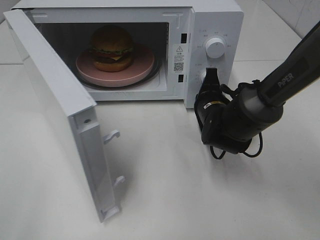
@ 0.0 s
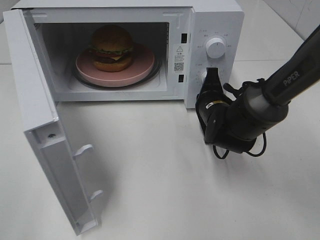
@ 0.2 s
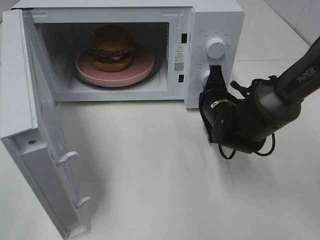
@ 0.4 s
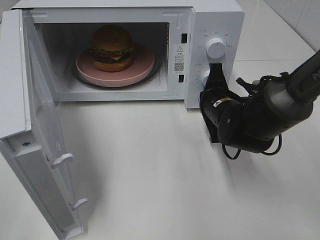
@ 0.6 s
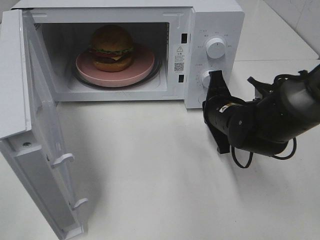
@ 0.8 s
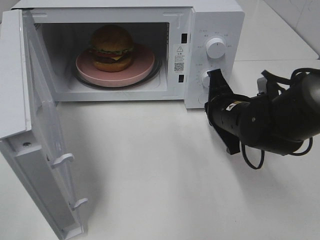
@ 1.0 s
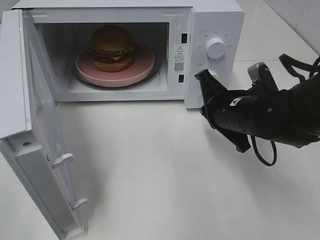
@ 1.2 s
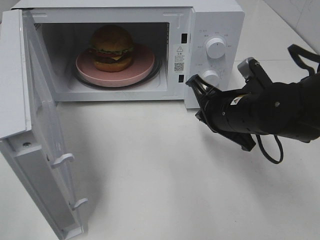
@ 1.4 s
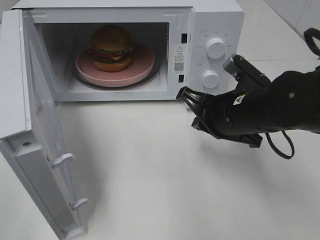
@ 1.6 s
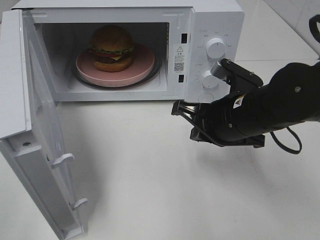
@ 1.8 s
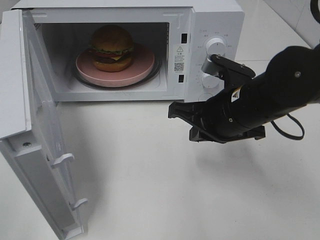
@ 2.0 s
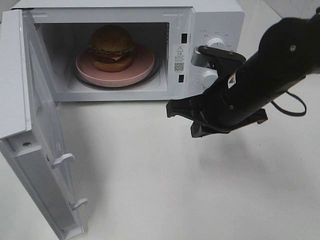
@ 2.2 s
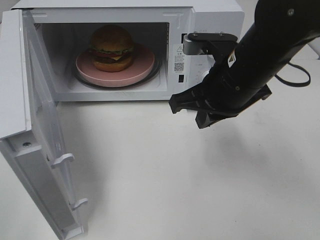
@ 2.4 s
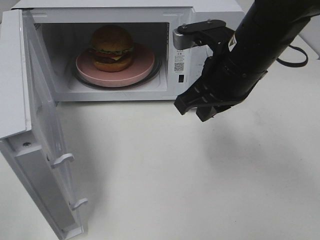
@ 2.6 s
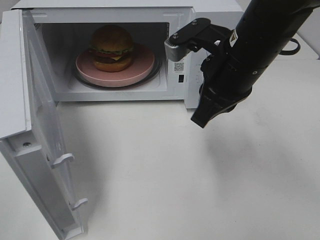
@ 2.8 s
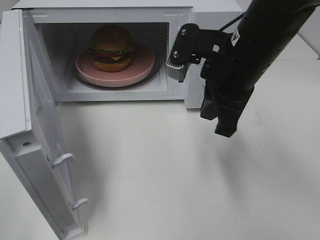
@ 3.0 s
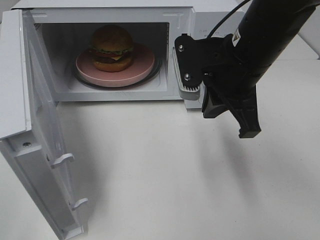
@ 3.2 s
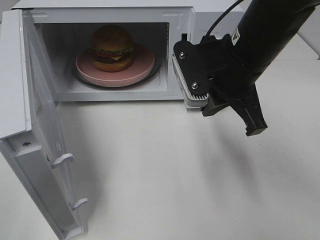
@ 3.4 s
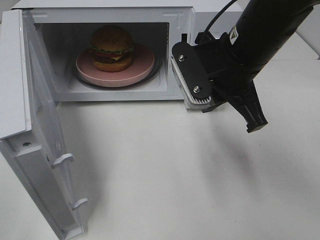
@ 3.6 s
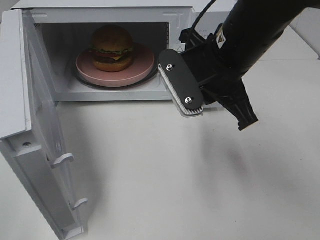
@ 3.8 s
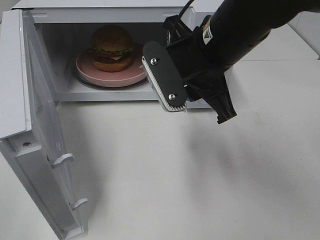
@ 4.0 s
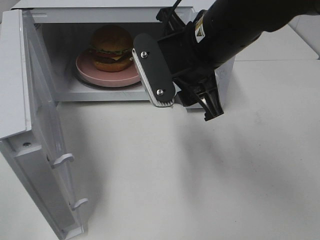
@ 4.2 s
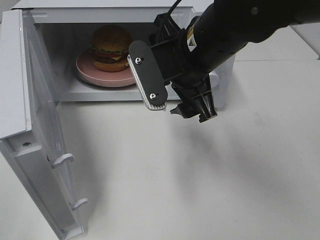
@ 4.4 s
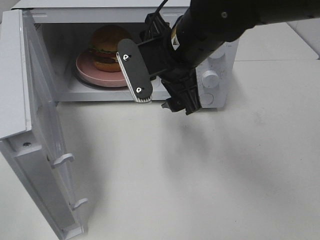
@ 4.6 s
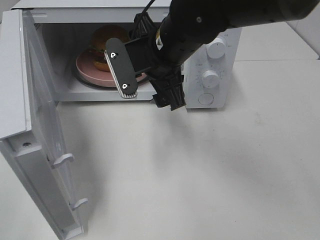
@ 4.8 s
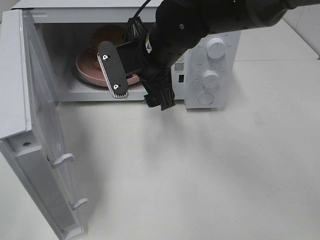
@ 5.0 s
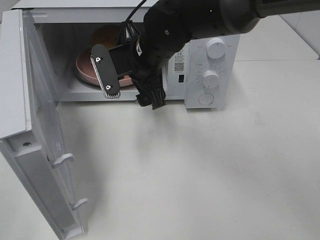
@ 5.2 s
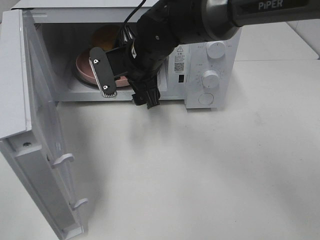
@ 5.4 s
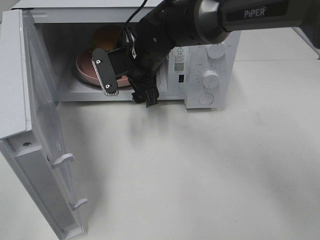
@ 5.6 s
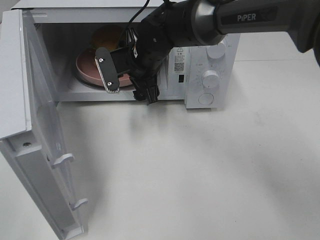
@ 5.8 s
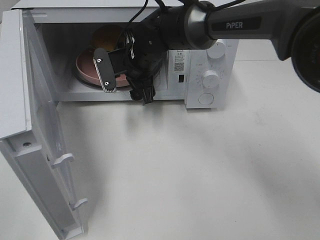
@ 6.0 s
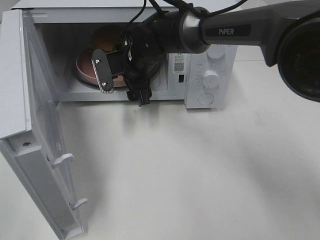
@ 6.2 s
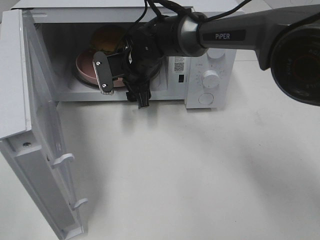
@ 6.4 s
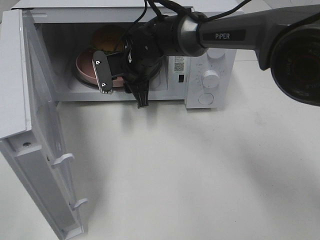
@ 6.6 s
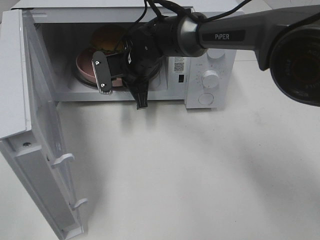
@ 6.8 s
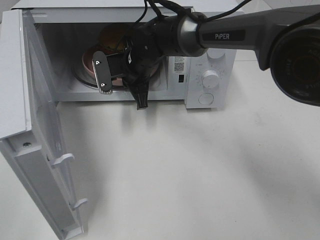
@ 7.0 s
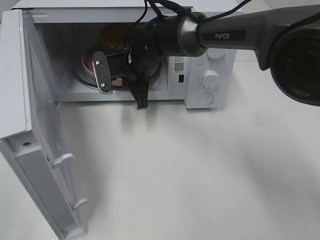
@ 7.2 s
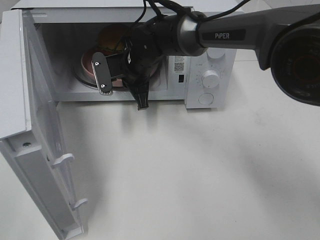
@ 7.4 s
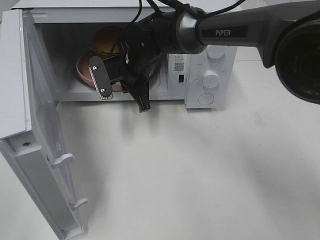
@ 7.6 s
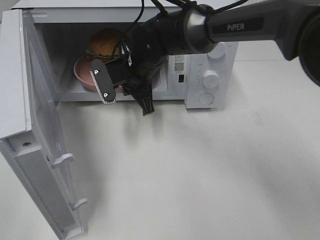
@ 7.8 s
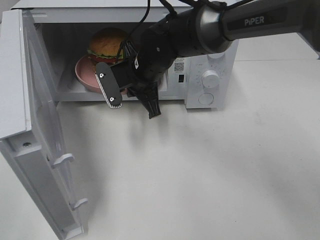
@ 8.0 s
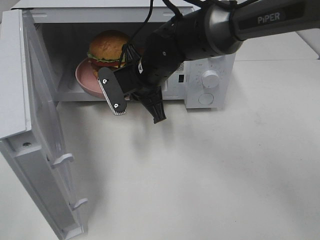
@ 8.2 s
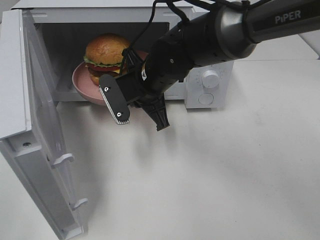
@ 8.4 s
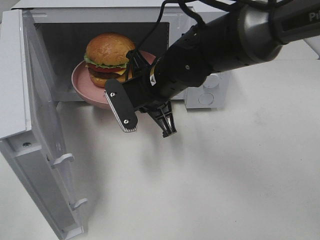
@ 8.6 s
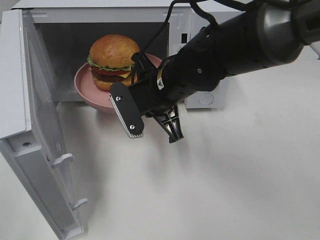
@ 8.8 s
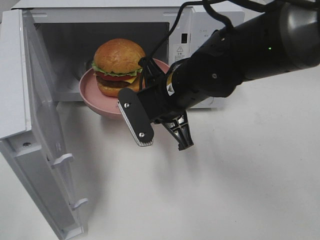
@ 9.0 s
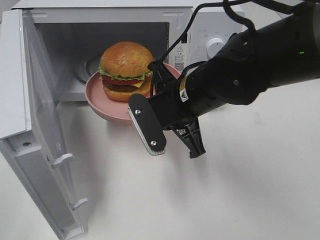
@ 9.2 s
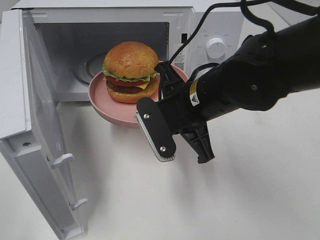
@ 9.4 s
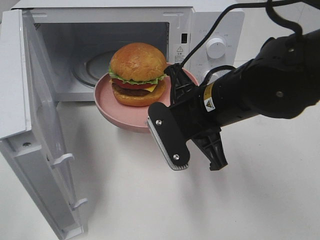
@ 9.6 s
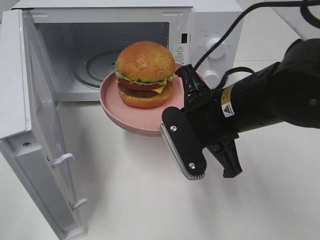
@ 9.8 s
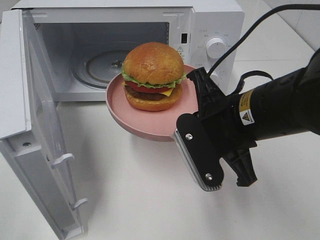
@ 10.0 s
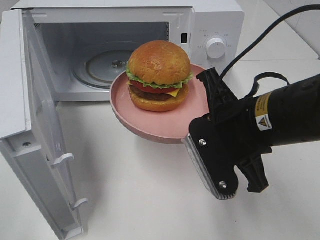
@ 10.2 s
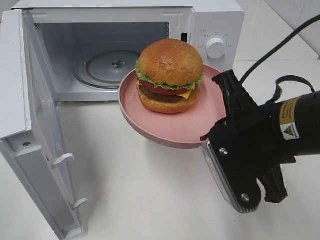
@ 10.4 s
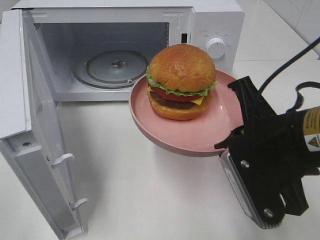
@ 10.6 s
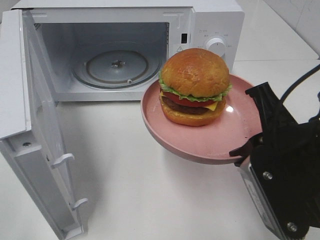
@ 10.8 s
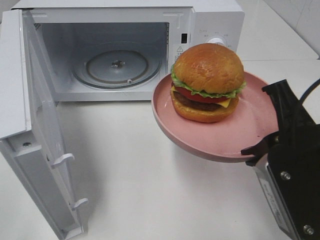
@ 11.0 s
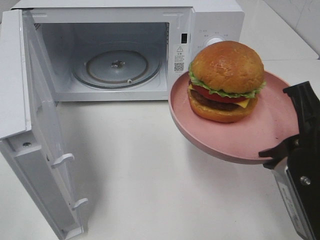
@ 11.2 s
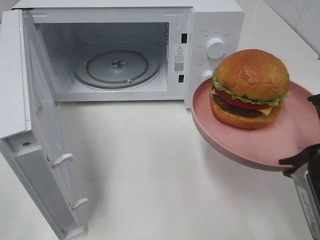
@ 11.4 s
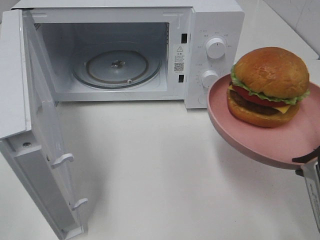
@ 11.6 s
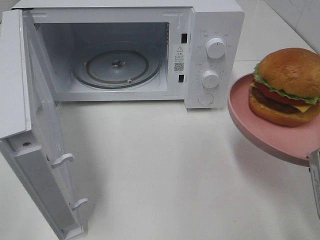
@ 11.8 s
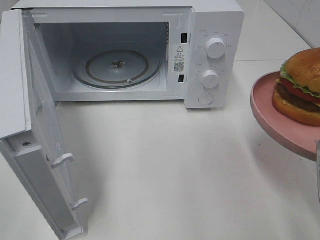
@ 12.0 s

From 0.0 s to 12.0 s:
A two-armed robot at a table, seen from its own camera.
Task of the whole recording: Heat the burger.
Step, from 0.6 s to 7.0 s: Right hand: grab the plate with the hamburger.
From 0.0 s to 1.6 s: The right gripper moves backward and upward, some 10 cm.
From 1.6 s to 3.0 s: The right gripper travels upward by approximately 10 cm.
From 3.0 s to 4.4 s: The right gripper shifts some 5 cm to the left, and opens.
From 4.4 s to 6.0 s: The right gripper goes about 20 cm forward, downward and to the left.
From 6.0 s to 7.6 s: The right gripper closes up.
From 7.6 s to 9.0 s: The right gripper goes about 15 cm backward and to the right.
From 9.0 s to 10.4 s: The right gripper is displaced backward and to the right by approximately 15 cm.
From 10.4 s to 12.0 s: The right gripper moves to the right and backward, approximately 10 cm.

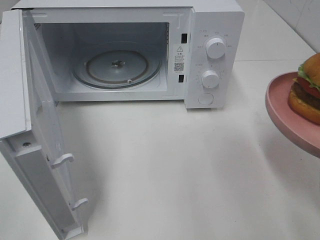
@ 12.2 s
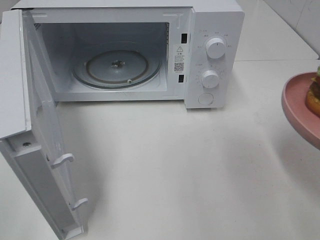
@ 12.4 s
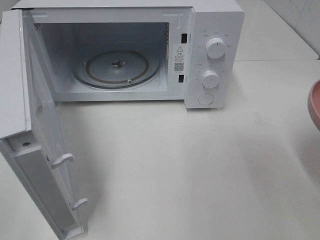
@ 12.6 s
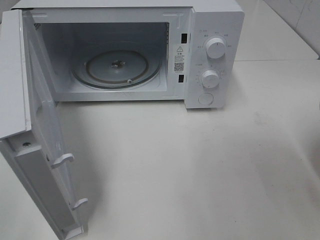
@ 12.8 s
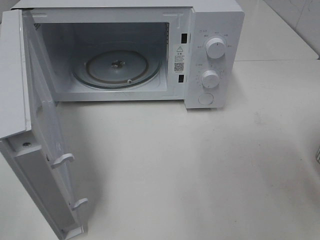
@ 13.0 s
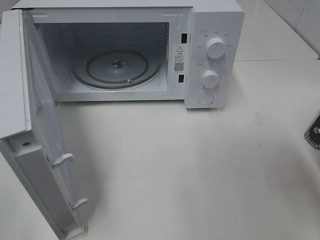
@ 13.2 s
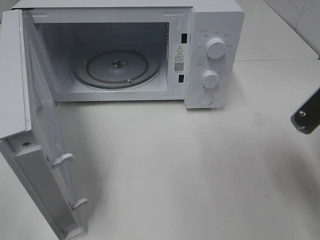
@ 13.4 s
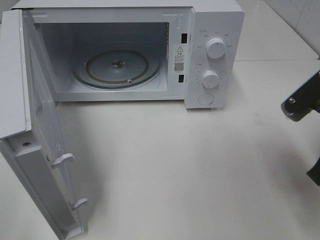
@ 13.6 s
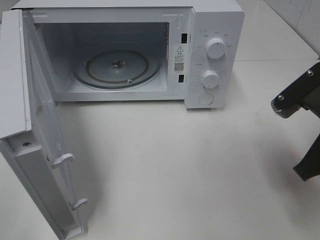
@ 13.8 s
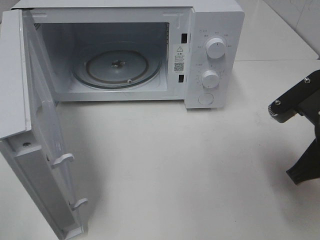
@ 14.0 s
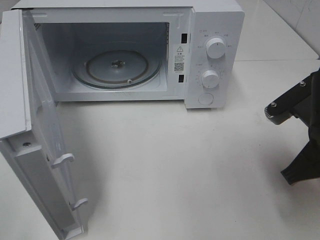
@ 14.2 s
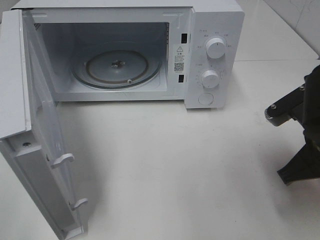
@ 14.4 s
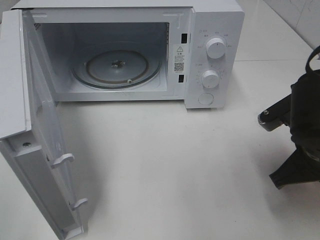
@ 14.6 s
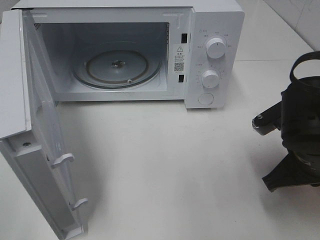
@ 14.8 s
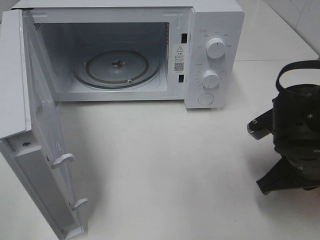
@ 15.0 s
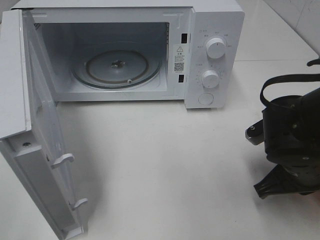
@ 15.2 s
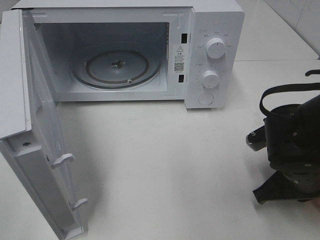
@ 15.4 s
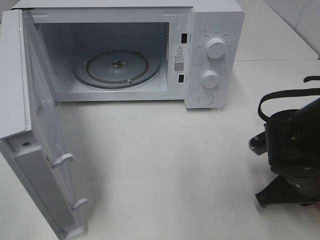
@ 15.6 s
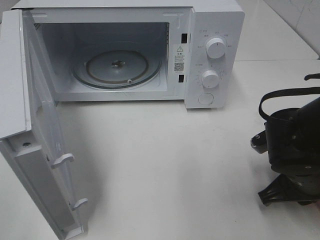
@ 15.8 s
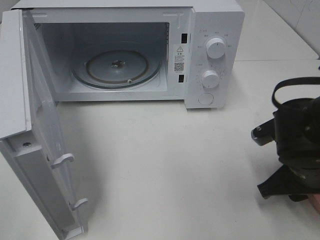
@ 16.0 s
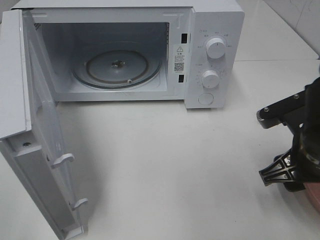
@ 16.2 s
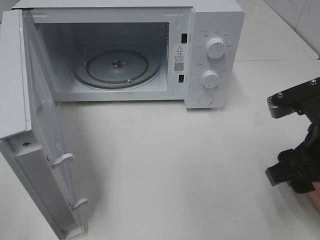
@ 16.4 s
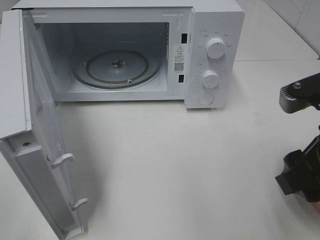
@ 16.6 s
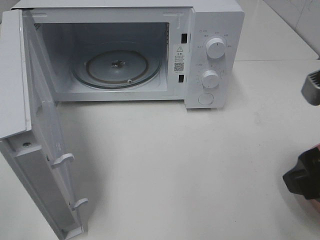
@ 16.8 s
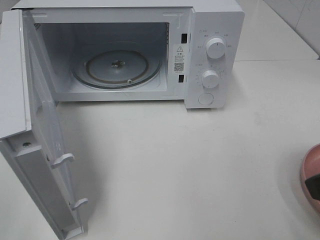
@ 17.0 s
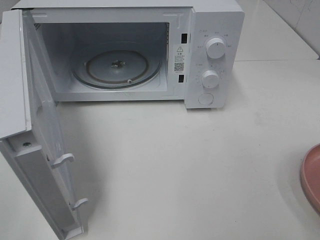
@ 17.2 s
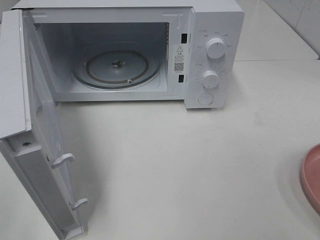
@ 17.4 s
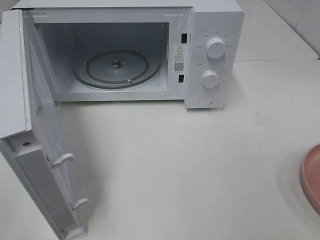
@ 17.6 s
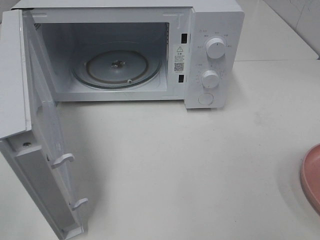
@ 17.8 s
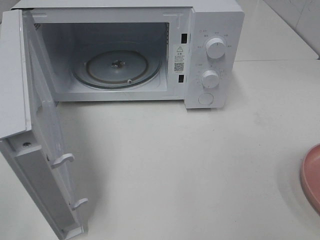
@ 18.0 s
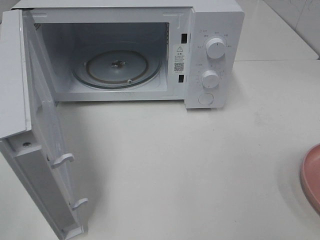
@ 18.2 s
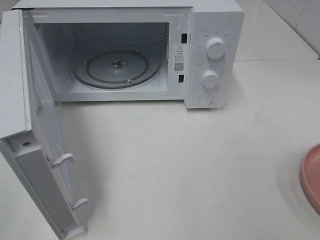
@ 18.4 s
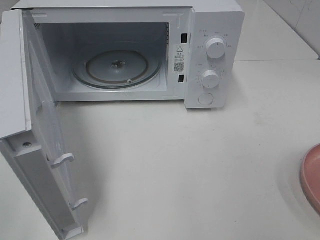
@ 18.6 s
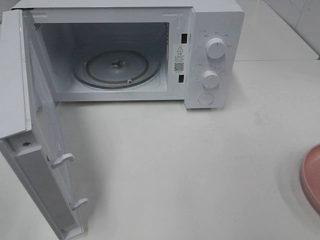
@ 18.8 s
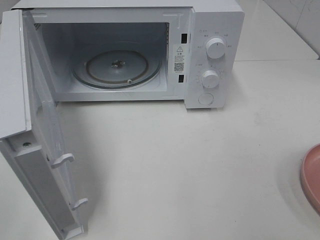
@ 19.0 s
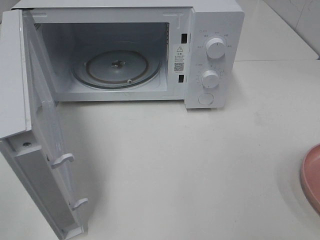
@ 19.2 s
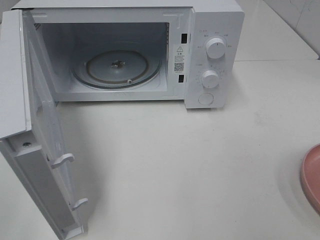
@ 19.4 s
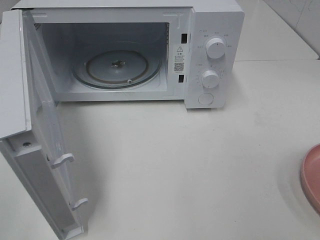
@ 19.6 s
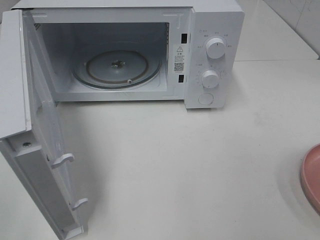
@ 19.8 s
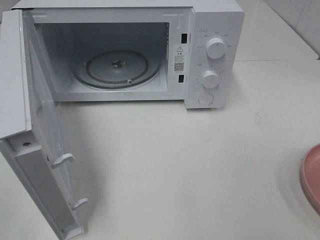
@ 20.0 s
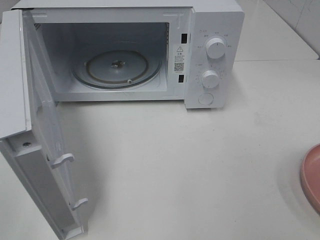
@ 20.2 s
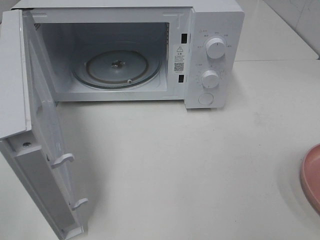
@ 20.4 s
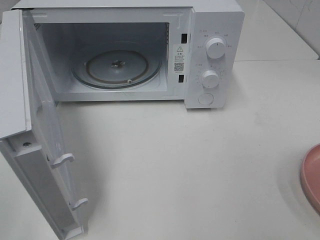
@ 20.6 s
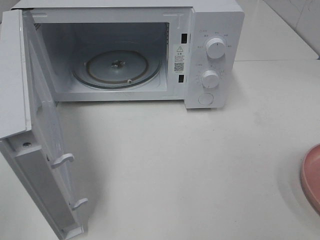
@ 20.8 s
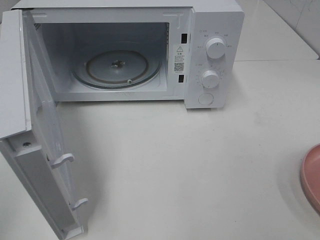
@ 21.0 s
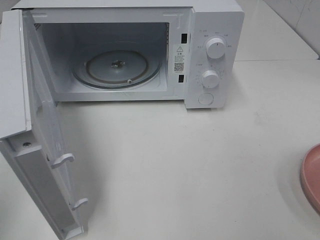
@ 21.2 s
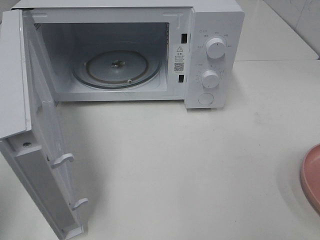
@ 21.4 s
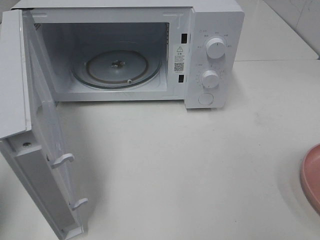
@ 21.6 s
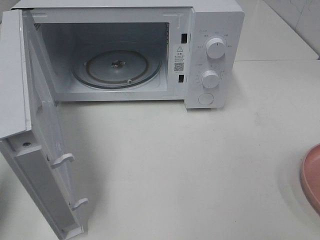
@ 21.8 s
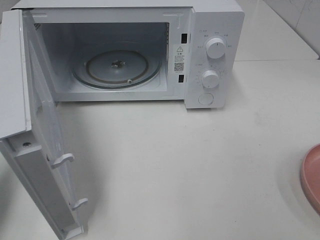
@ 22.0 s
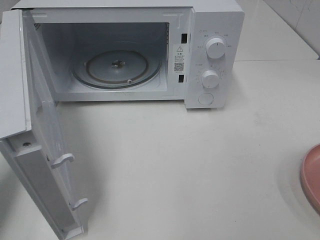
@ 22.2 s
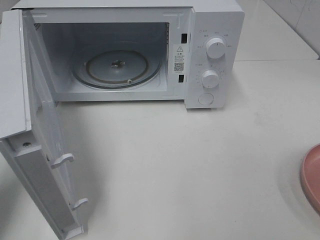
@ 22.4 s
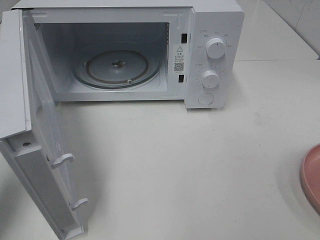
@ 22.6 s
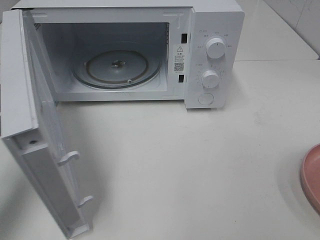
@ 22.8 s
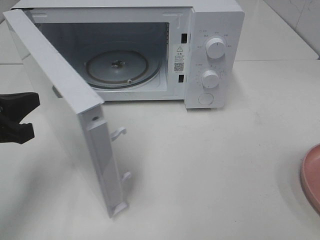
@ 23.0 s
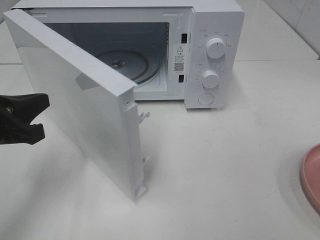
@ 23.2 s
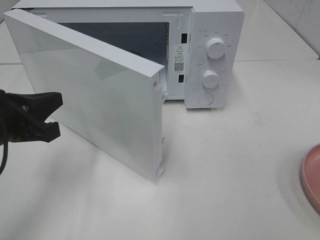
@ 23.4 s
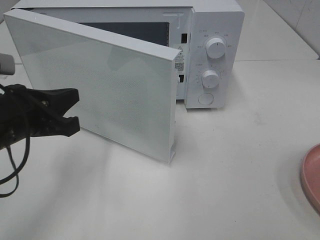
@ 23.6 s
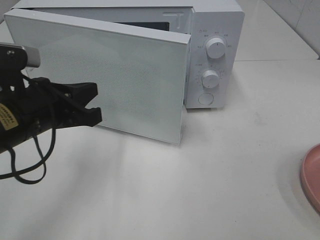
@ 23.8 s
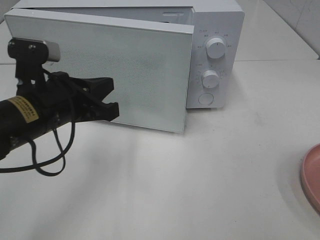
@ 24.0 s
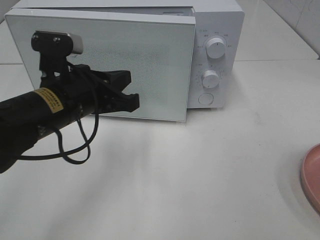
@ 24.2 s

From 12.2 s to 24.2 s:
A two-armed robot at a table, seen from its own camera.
Task of the whole recording: Heat the burger.
Step, from 12.2 s to 16.0 s: Right hand: place the plate on the table.
From 12.2 s to 13.8 s: The right gripper is displaced forward by about 5 cm.
From 13.8 s to 15.2 s: The right gripper travels downward by roughly 10 cm.
From 15.2 s to 16.6 s: The right gripper goes roughly 15 cm upward and backward, and opens its fingers.
From 16.6 s to 18.2 s: The right gripper shifts about 20 cm backward, to the right and upward.
From 21.2 s to 22.6 s: The left gripper travels forward and downward by some 15 cm.
From 22.6 s to 24.2 s: The left gripper travels to the right by some 15 cm.
